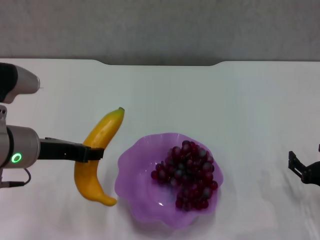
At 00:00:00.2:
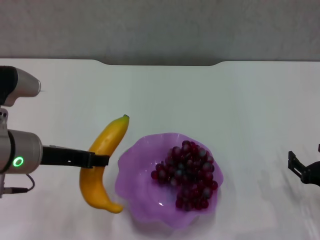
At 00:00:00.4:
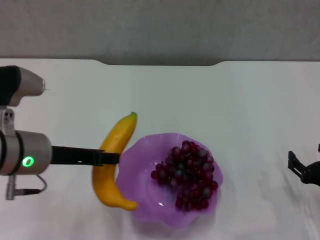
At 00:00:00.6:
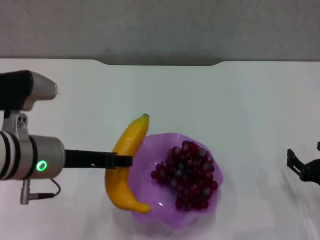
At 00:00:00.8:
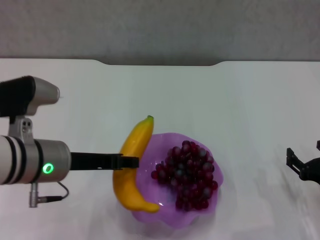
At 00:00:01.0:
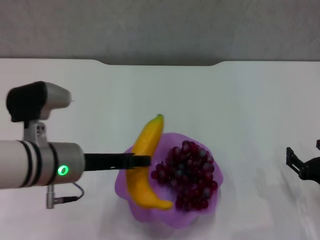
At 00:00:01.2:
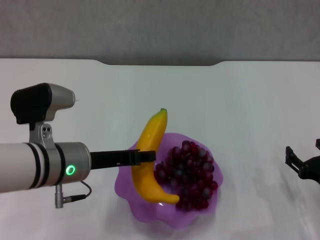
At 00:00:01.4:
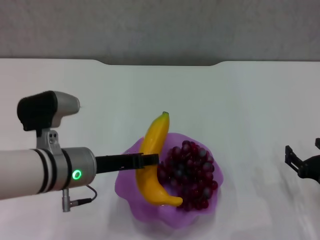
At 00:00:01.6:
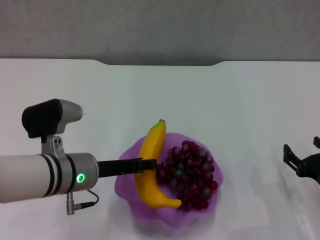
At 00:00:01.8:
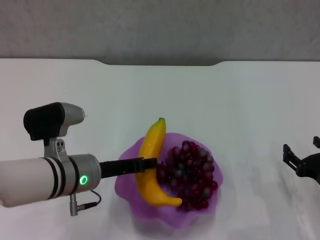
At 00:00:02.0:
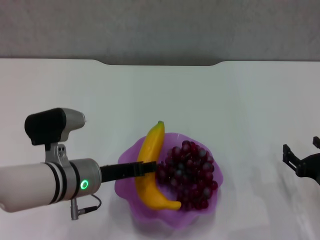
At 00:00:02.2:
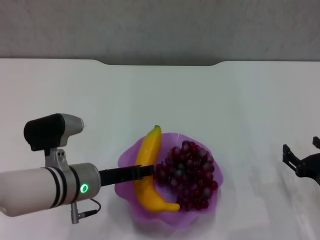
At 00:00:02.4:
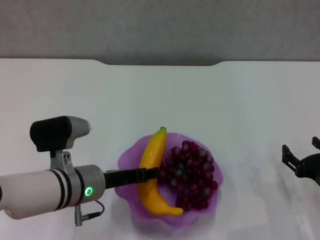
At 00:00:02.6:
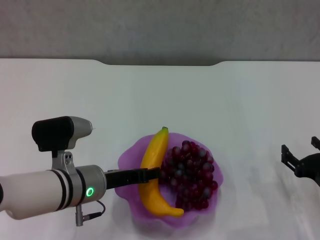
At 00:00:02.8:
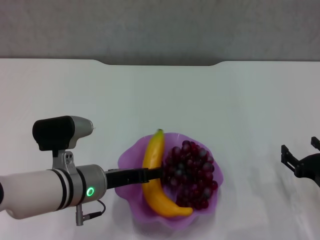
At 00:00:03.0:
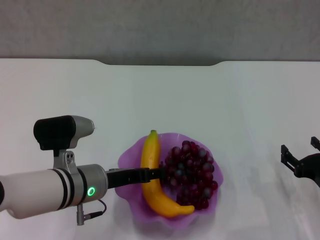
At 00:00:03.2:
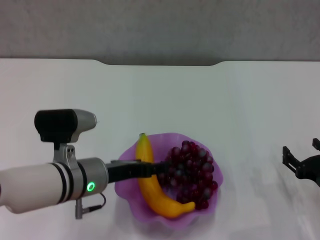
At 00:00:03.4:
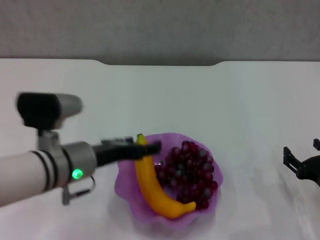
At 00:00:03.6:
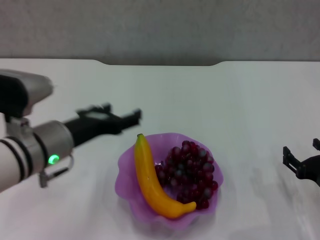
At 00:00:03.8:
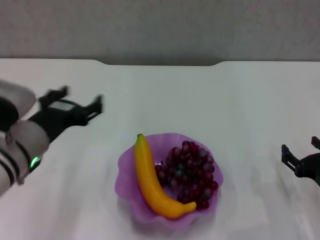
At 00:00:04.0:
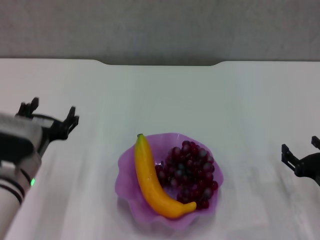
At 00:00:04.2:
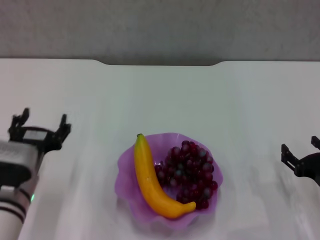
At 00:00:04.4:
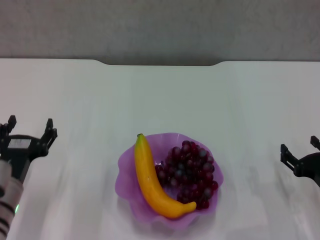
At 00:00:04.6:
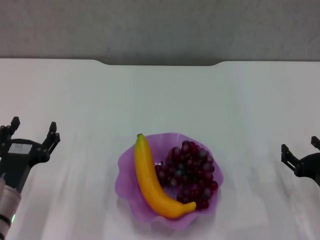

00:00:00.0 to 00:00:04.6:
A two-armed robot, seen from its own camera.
Step, 00:00:00.0 to 00:00:03.6: Place the banana in the purple plate with left gripper.
00:00:00.0 to 00:00:01.6: The left gripper goes about 10 cm downward and to the right.
00:00:01.6 to 00:00:03.0: There are only small adjustments of the grippers.
00:00:03.0 to 00:00:04.6: The left gripper moves to the left and backward, about 10 cm, and opens.

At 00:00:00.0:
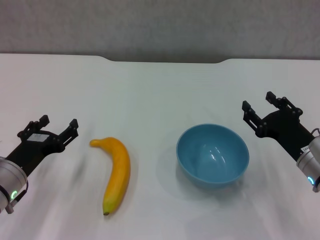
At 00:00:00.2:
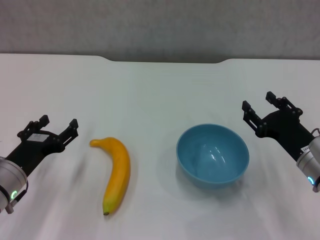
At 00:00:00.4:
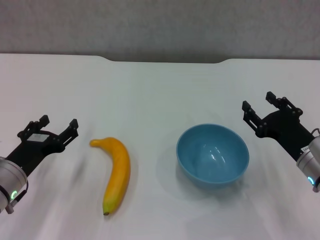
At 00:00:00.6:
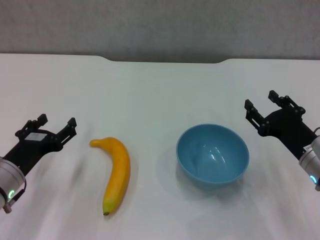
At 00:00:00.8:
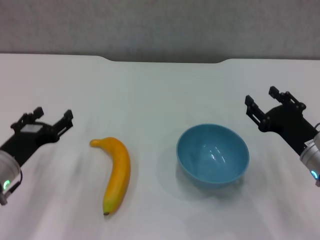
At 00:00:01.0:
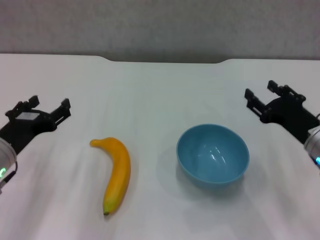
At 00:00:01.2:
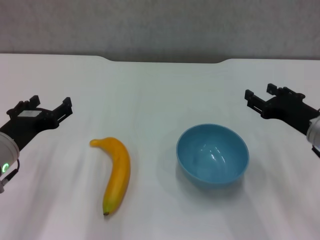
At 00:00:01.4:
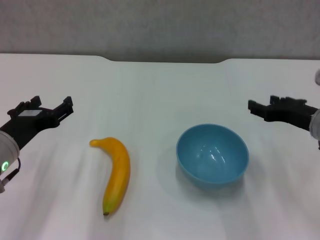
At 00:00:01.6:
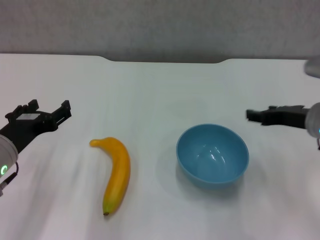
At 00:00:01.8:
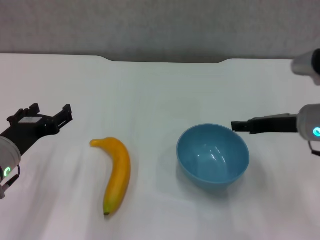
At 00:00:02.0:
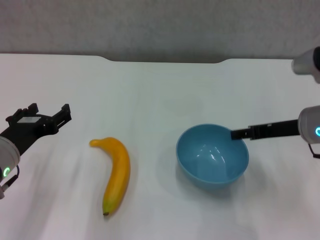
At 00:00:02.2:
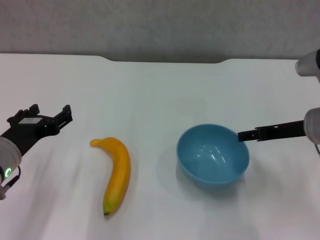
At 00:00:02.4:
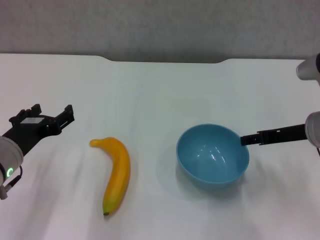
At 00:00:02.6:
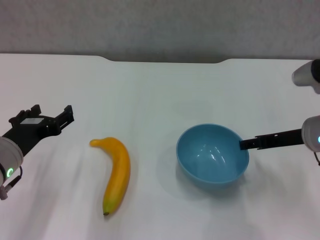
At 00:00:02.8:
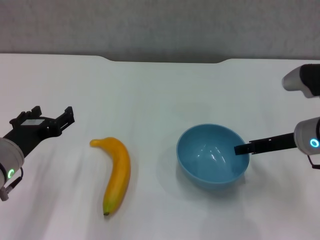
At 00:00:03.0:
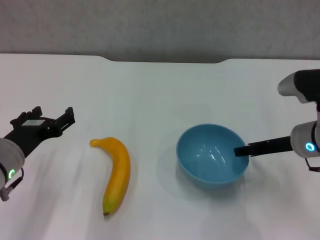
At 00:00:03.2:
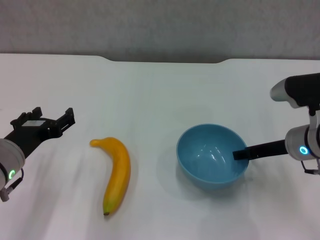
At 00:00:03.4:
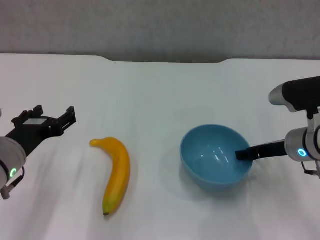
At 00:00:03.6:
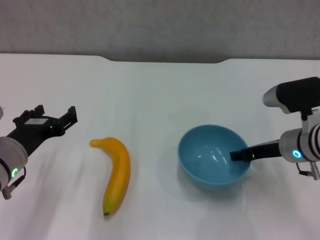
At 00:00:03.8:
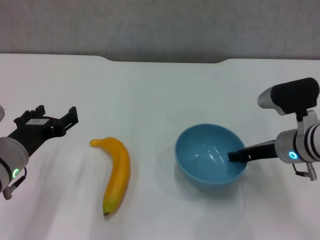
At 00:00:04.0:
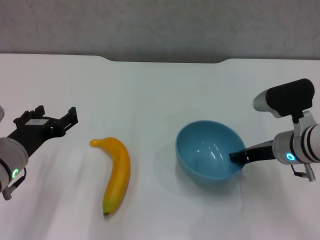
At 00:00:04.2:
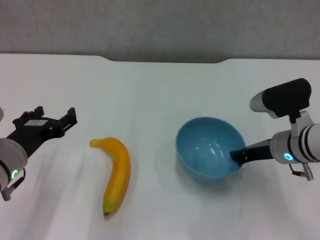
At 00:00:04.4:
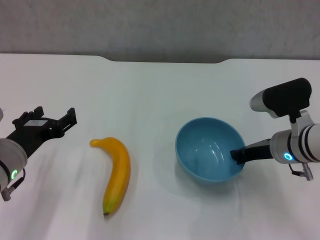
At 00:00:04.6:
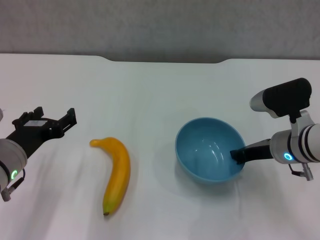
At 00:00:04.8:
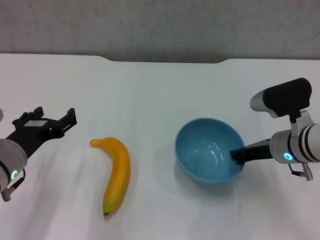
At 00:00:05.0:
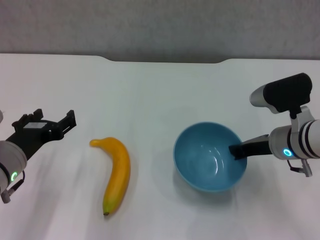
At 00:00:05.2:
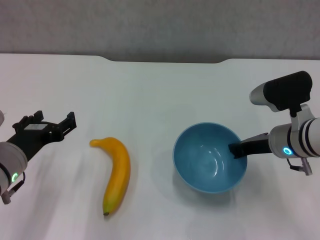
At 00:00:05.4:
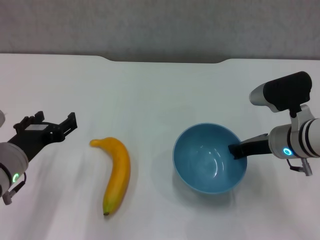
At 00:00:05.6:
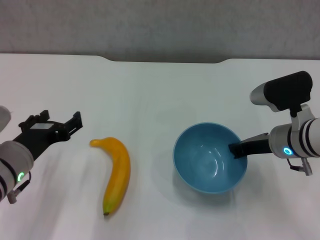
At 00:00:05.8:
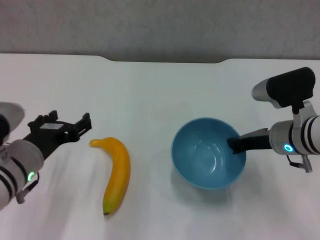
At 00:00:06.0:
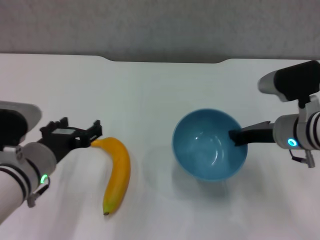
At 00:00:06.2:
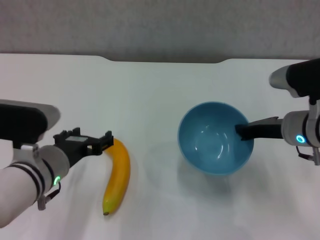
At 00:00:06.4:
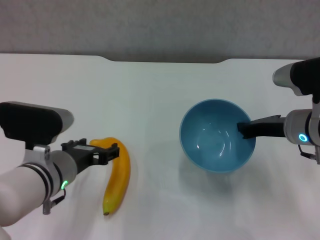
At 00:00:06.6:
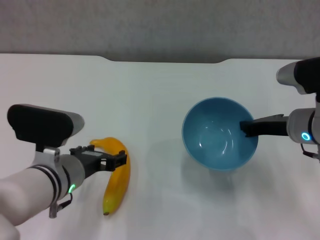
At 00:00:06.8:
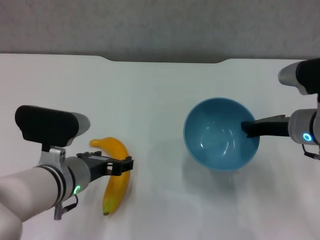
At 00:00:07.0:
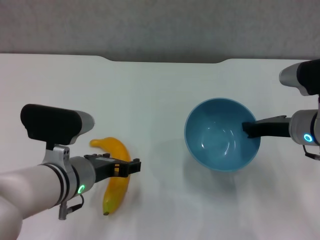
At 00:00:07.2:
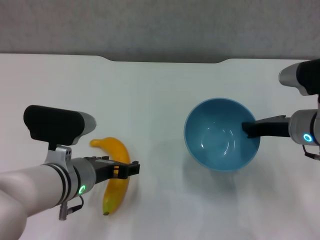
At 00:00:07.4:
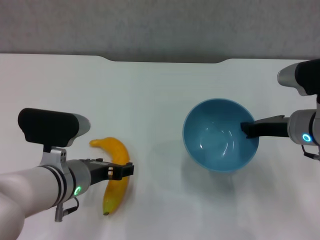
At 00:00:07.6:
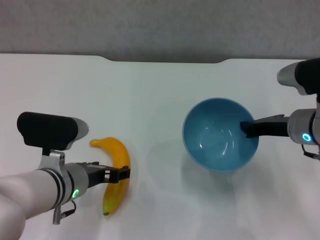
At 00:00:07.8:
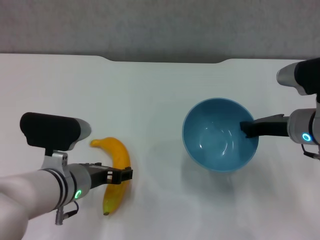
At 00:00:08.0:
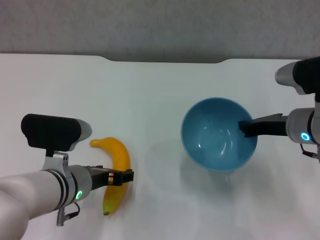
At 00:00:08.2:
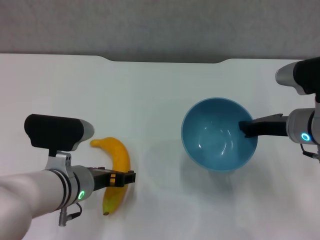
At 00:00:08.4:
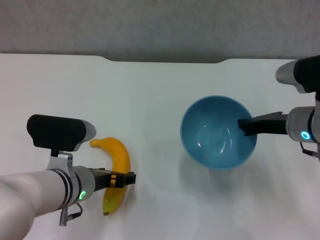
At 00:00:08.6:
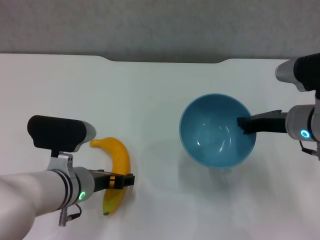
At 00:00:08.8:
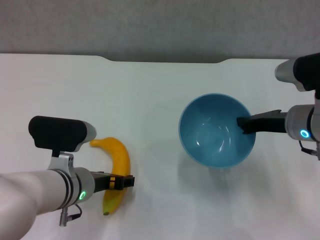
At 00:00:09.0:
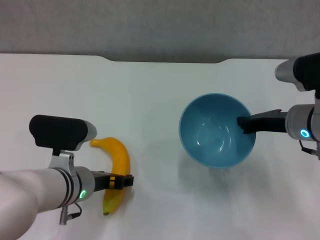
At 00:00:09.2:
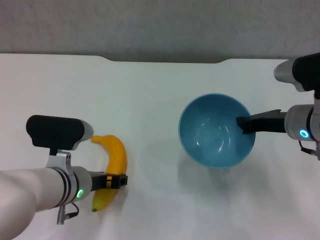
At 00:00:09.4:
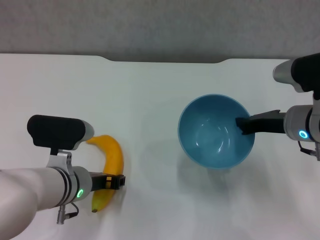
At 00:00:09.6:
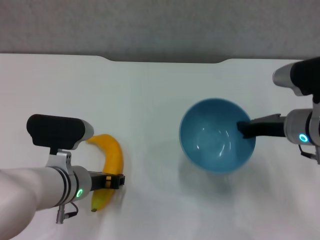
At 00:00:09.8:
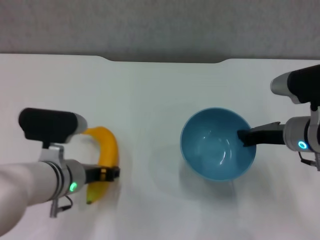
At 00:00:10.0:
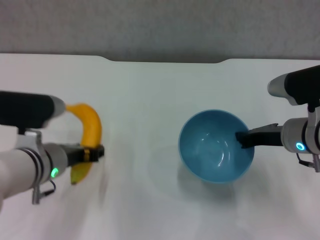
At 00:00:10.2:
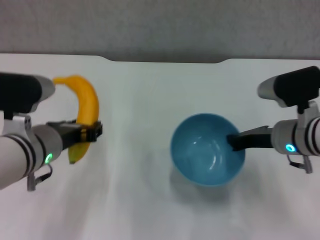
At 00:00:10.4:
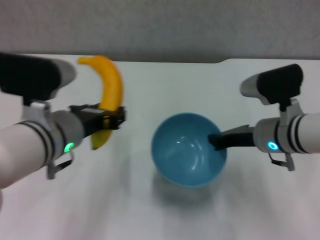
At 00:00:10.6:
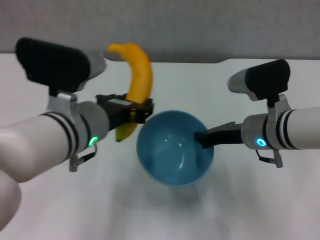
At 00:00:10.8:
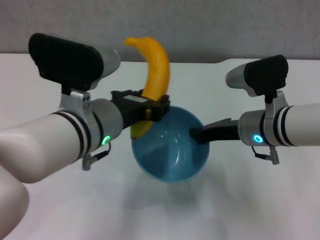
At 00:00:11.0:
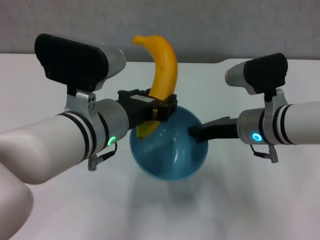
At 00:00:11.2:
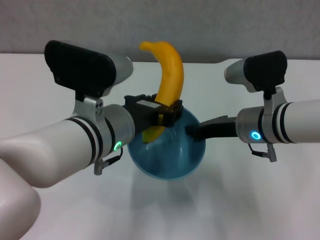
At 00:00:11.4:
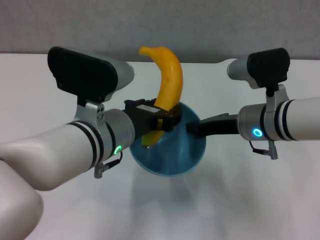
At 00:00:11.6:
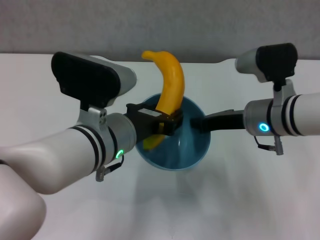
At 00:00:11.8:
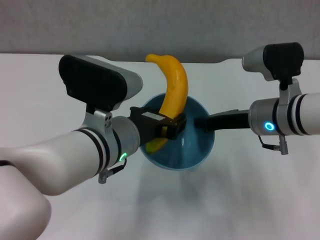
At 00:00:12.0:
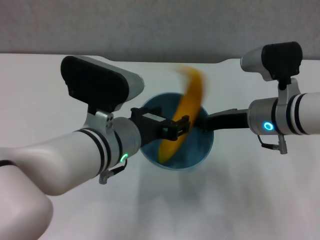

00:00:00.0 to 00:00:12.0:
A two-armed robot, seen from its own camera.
Step, 00:00:00.0 to 00:00:04.2: Grasp the blue bowl with right gripper.
Step, 00:00:04.6 to 00:00:06.2: Lift the blue bowl with right gripper.
Step, 00:00:06.4 to 00:00:09.4: Grasp the banana with left gripper.
00:00:00.0 to 00:00:01.6: The right gripper goes roughly 10 cm upward and forward. Meanwhile the left gripper shifts roughly 5 cm upward.
00:00:01.6 to 00:00:03.0: The grippers move only a little.
00:00:03.0 to 00:00:04.4: The right gripper closes its fingers.
00:00:04.4 to 00:00:06.0: There are only small adjustments of the grippers.
00:00:07.6 to 00:00:09.0: The grippers make only small movements.
00:00:09.0 to 00:00:10.4: The left gripper shifts some 10 cm upward, and closes up.
00:00:10.4 to 00:00:12.0: The left gripper travels to the right by roughly 5 cm.

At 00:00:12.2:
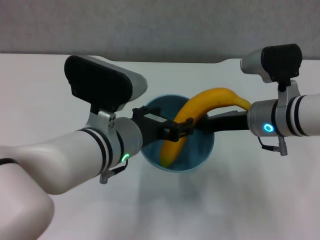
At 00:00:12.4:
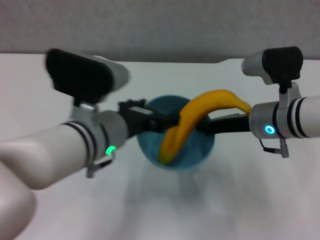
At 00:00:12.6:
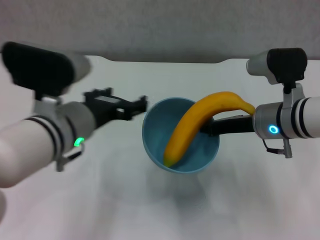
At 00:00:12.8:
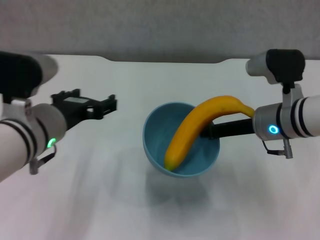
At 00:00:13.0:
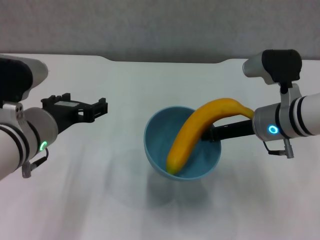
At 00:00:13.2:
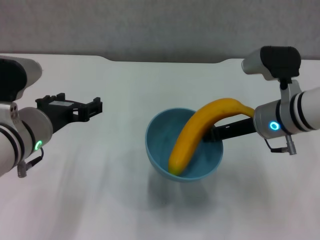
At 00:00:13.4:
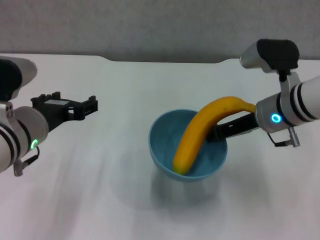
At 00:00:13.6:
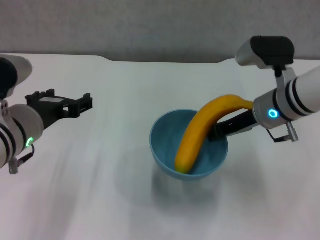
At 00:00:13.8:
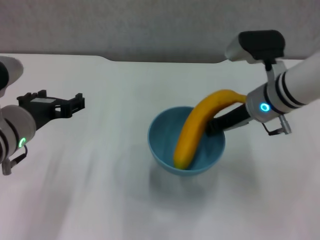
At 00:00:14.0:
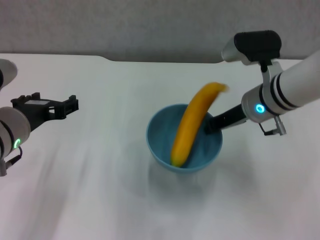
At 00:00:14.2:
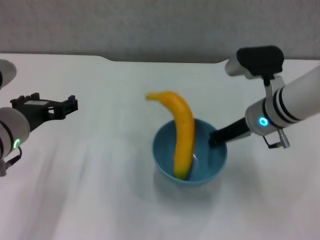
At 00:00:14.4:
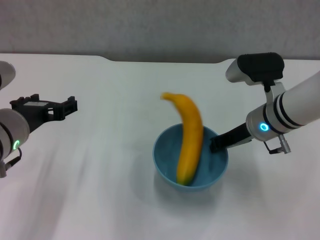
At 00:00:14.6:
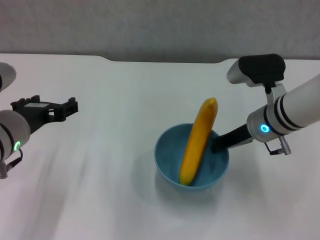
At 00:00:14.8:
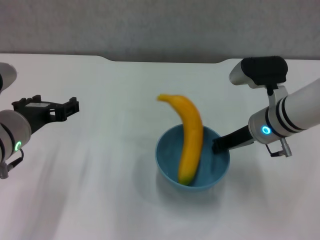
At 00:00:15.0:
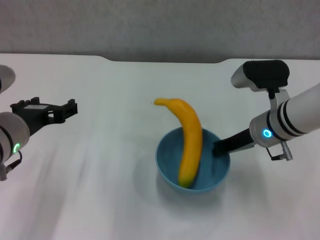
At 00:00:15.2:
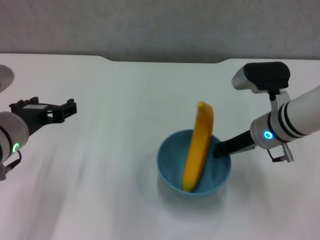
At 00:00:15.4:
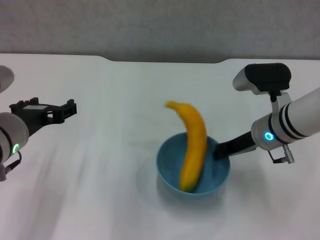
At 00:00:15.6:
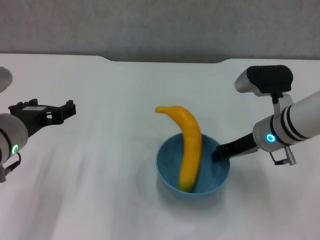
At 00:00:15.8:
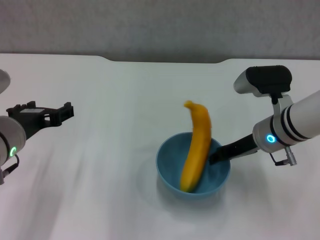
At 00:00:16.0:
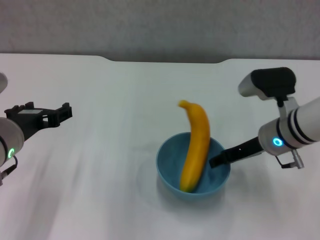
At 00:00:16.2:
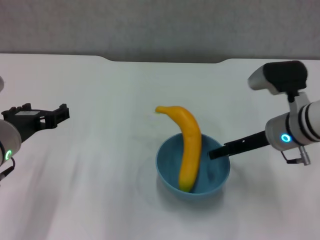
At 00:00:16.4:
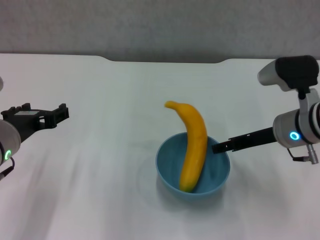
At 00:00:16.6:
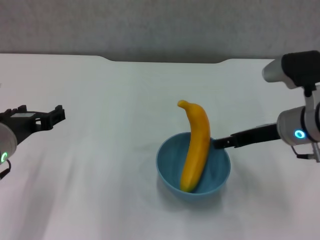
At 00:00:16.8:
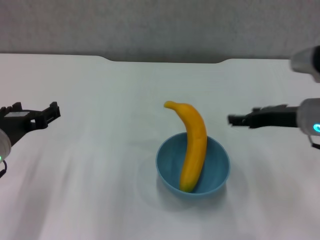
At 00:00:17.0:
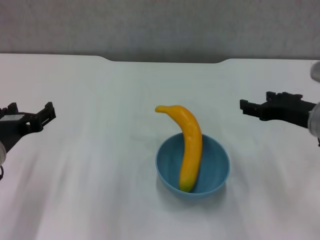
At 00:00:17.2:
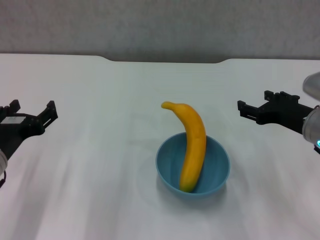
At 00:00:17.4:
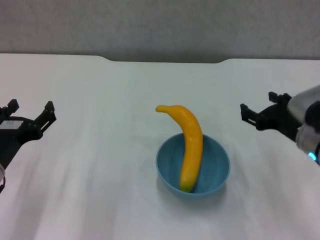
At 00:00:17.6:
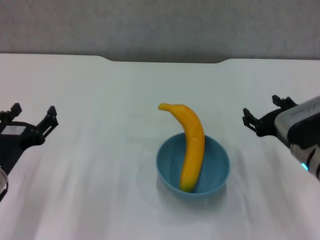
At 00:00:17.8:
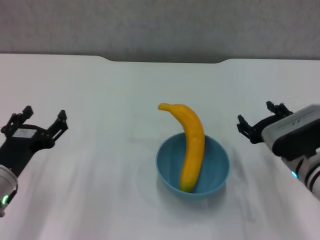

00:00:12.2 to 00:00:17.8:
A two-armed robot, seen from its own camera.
Step, 00:00:12.6 to 00:00:16.4: Place the bowl on the table with right gripper.
00:00:12.2 to 00:00:13.6: The left gripper goes approximately 10 cm to the left, and opens.
00:00:15.0 to 00:00:16.4: The right gripper opens.
00:00:16.4 to 00:00:17.8: The right gripper moves backward and downward, approximately 10 cm. Meanwhile the left gripper shifts roughly 10 cm downward.
